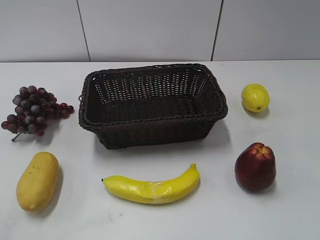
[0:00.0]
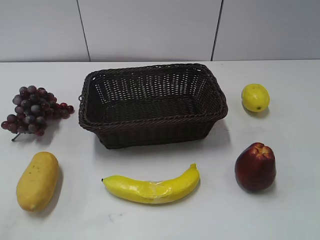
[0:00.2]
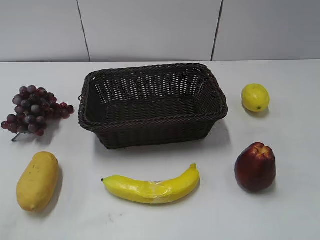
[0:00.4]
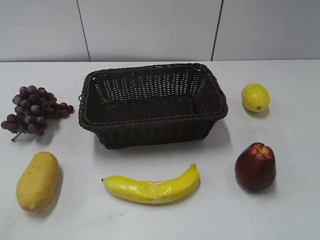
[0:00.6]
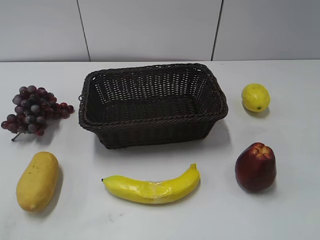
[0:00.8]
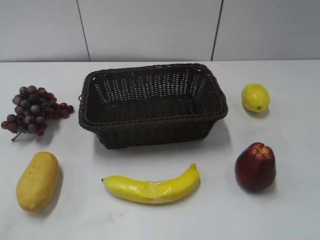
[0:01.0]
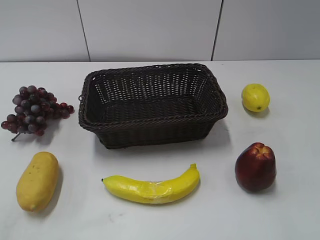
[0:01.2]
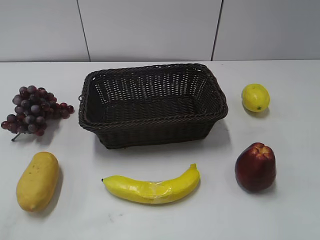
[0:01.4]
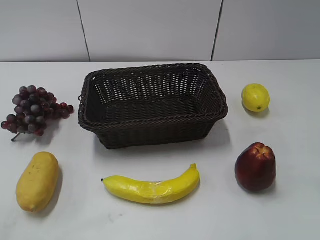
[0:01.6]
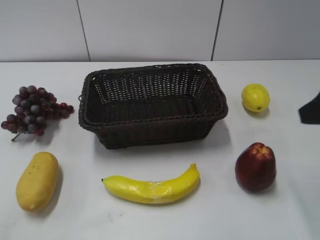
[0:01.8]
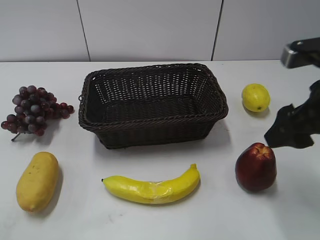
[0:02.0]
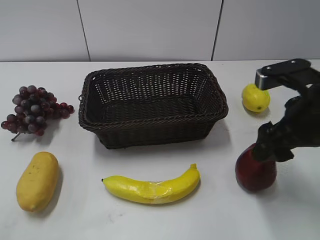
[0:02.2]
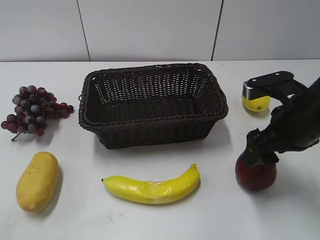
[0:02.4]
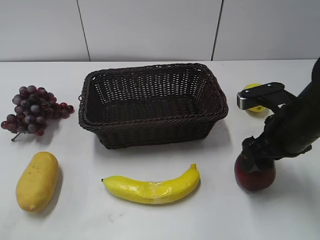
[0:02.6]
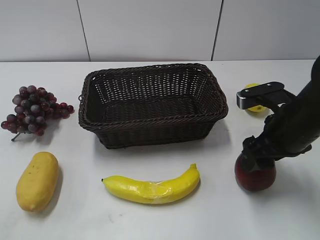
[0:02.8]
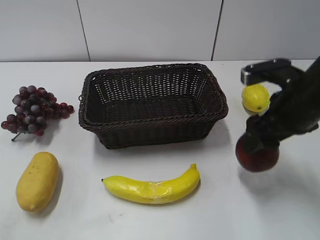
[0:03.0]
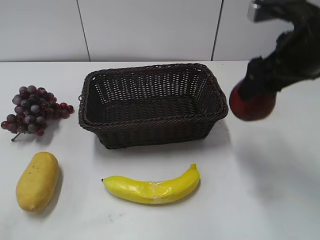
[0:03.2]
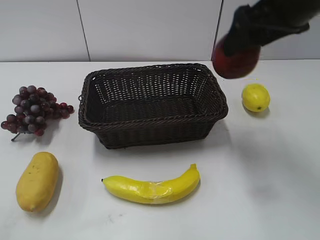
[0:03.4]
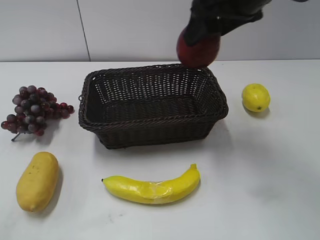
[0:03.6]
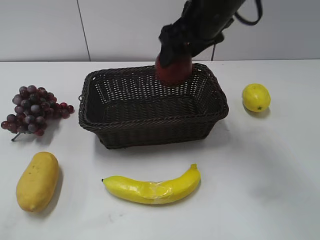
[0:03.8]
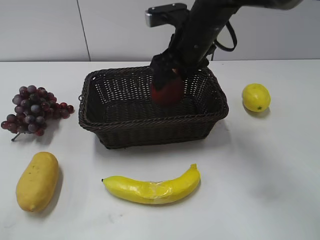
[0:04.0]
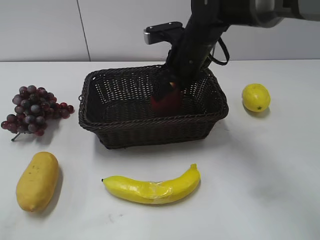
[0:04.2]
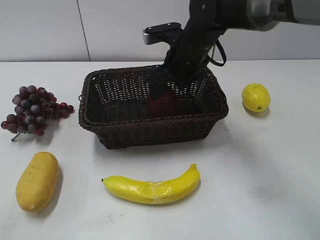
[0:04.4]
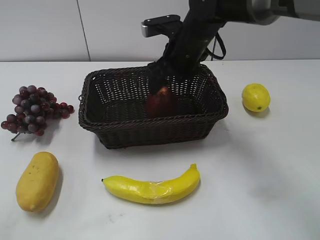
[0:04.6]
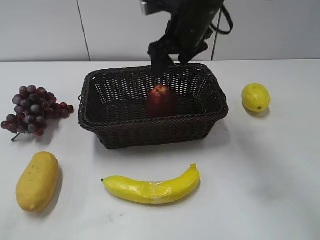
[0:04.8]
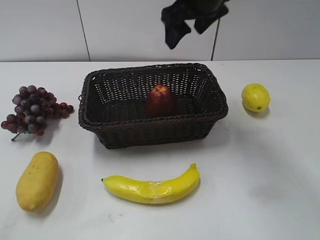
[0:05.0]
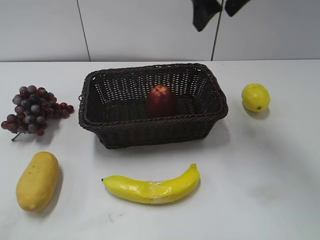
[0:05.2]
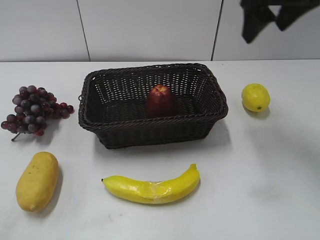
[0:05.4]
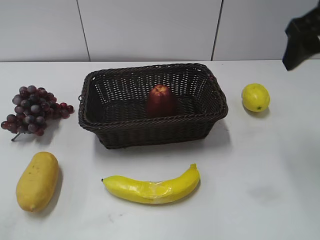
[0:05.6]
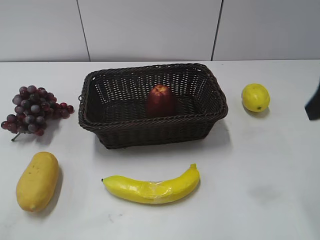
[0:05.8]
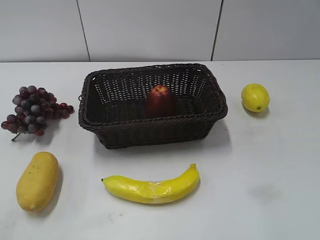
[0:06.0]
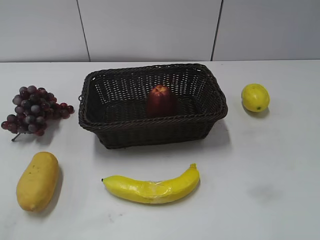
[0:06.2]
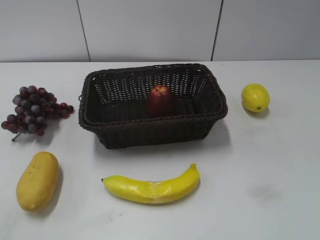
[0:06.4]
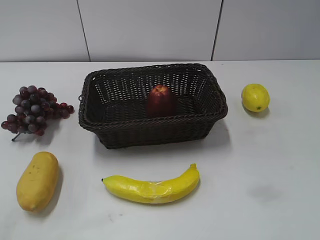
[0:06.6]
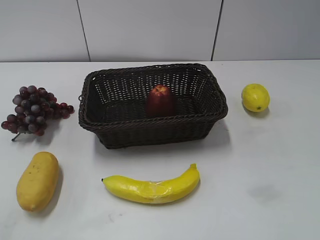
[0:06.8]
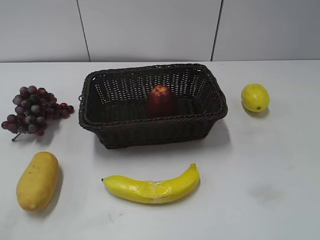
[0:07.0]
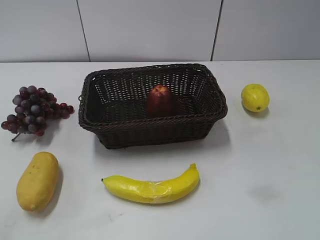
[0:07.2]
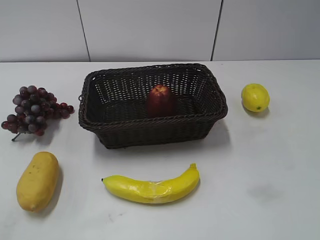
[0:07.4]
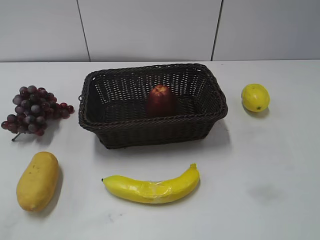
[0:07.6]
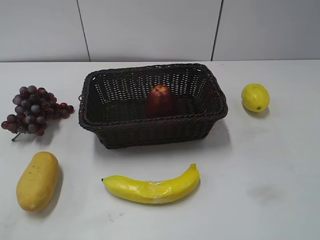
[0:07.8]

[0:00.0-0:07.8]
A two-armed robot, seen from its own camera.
Step, 0:01.8 to 0:02.6: Grasp the apple with right gripper.
Step, 0:02.8 to 0:04.4: Place the apple in the basket with right gripper.
0:01.6 to 0:03.2: The right gripper heads forward and to the left, covering about 15 cm, reaches about 15 cm downward, then returns, and opens, then closes again.
0:03.2 to 0:04.6: The right gripper is displaced to the left, forward and downward by about 20 cm, and opens its fingers.
0:04.6 to 0:06.2: The right gripper shifts some 40 cm backward and to the right, and closes its fingers.
